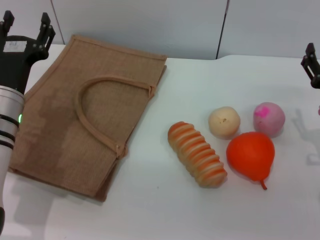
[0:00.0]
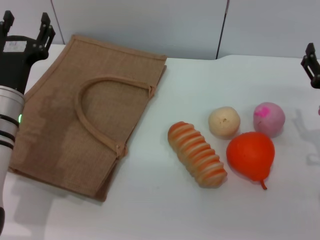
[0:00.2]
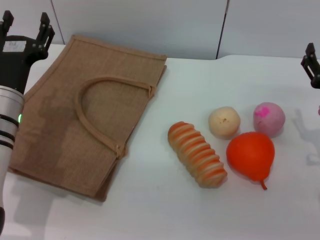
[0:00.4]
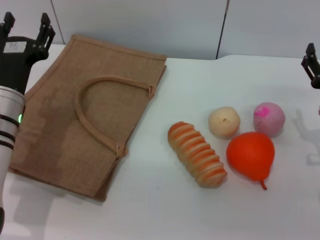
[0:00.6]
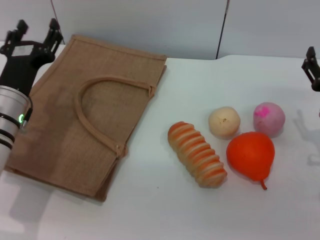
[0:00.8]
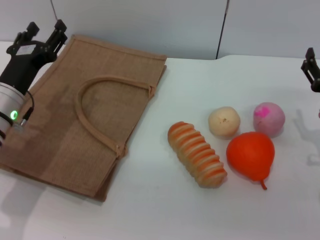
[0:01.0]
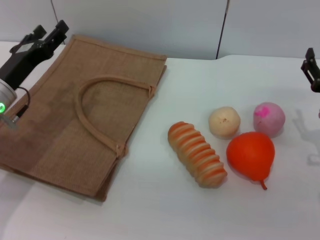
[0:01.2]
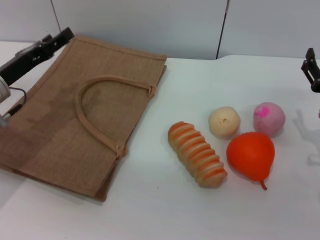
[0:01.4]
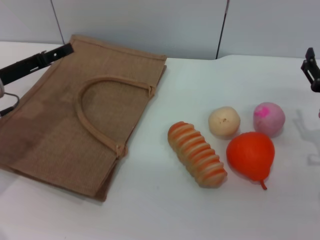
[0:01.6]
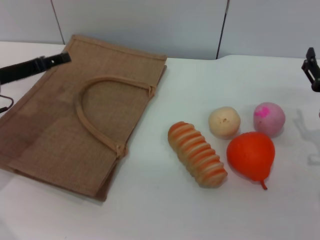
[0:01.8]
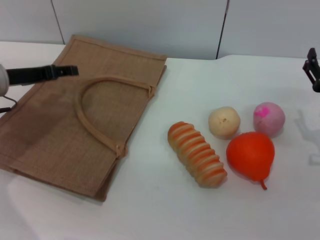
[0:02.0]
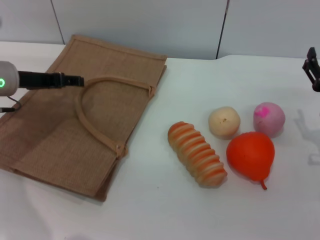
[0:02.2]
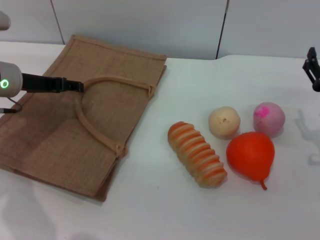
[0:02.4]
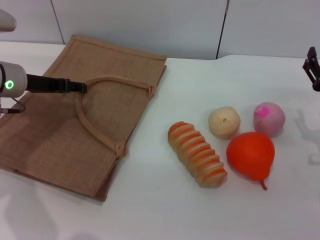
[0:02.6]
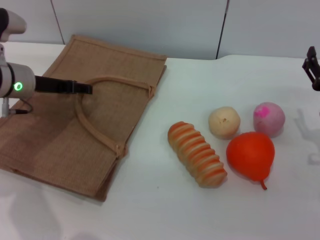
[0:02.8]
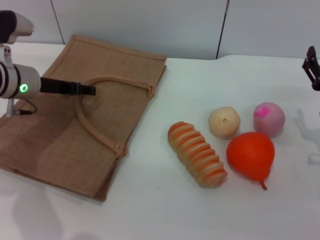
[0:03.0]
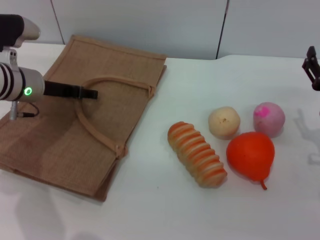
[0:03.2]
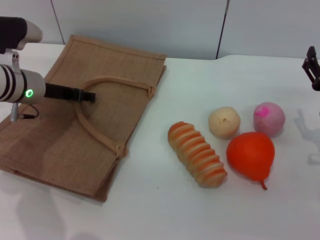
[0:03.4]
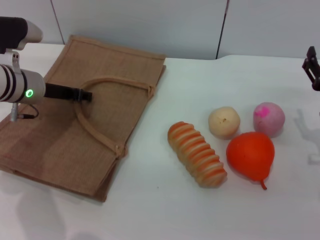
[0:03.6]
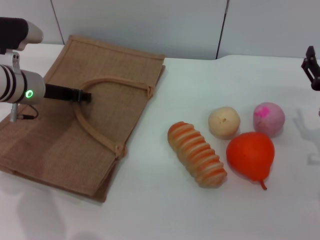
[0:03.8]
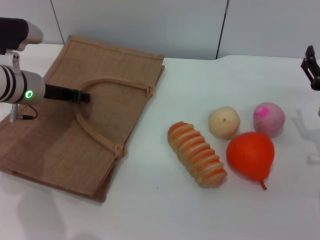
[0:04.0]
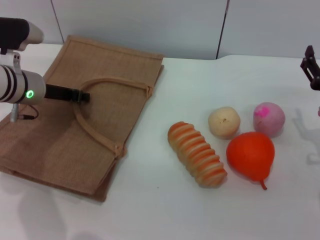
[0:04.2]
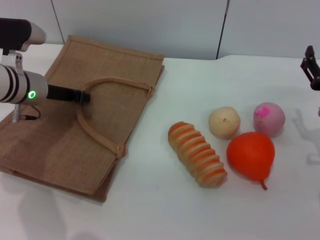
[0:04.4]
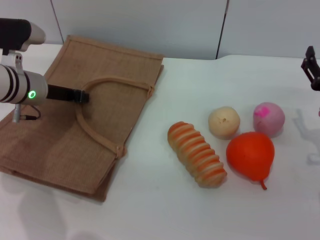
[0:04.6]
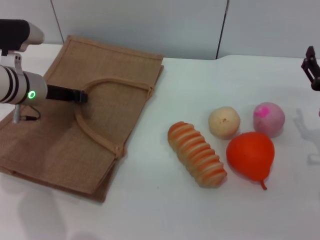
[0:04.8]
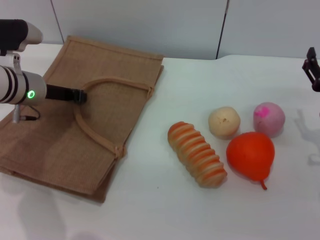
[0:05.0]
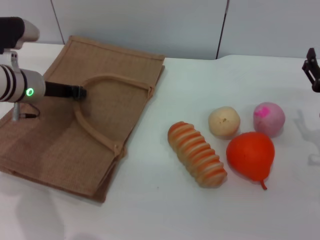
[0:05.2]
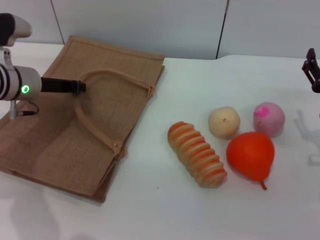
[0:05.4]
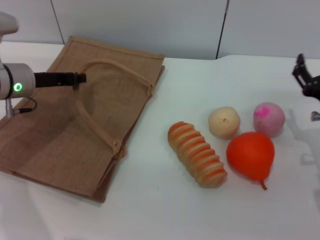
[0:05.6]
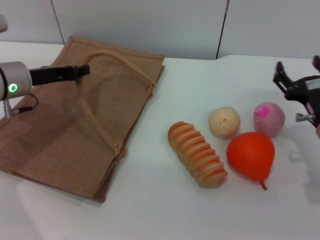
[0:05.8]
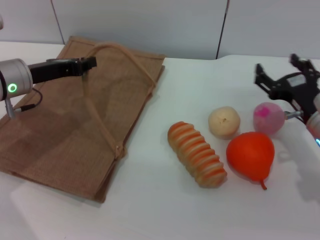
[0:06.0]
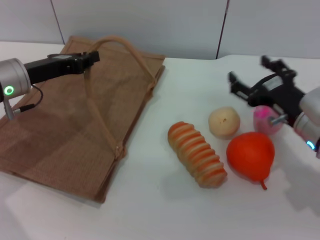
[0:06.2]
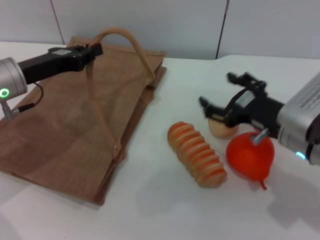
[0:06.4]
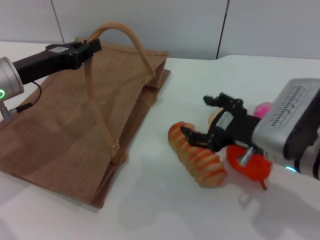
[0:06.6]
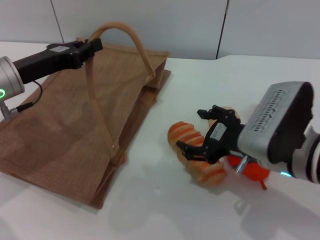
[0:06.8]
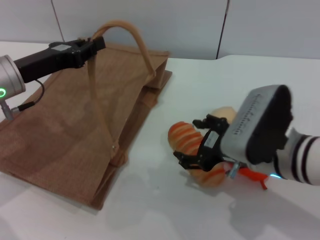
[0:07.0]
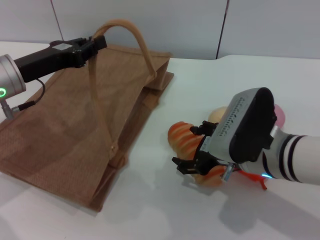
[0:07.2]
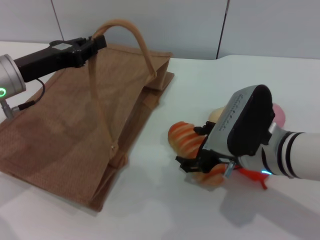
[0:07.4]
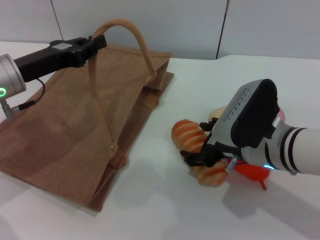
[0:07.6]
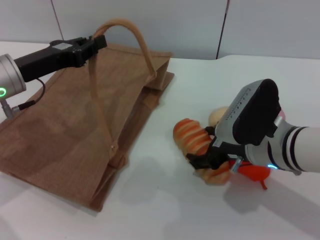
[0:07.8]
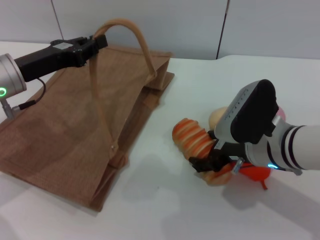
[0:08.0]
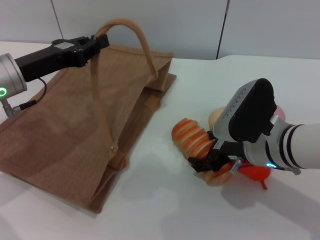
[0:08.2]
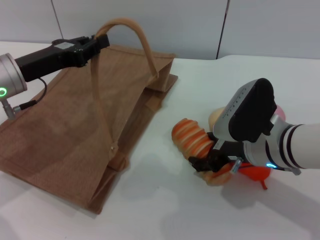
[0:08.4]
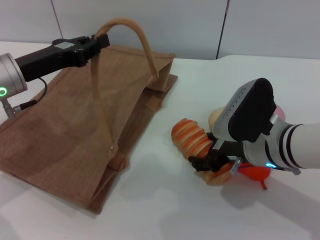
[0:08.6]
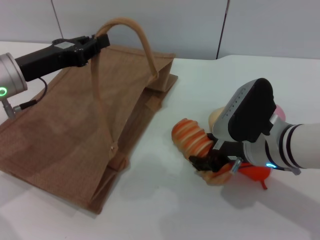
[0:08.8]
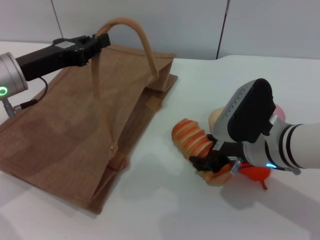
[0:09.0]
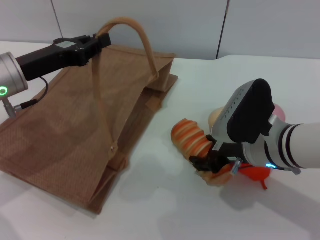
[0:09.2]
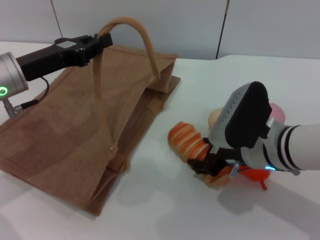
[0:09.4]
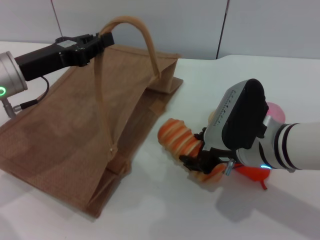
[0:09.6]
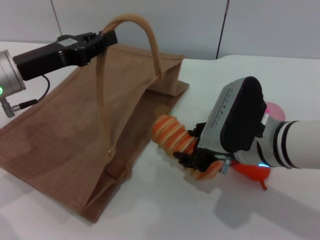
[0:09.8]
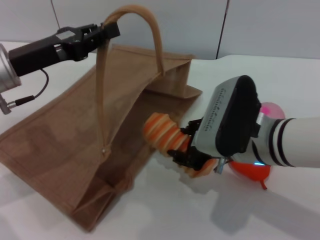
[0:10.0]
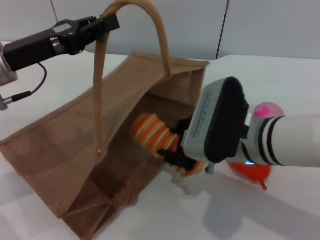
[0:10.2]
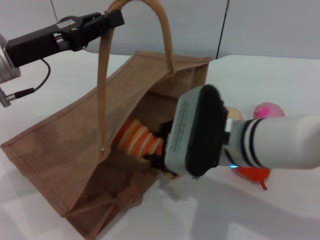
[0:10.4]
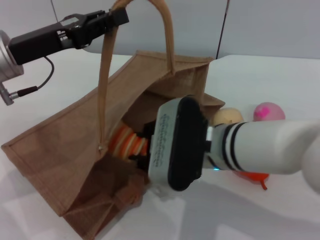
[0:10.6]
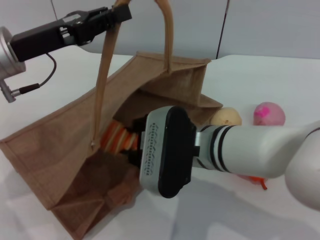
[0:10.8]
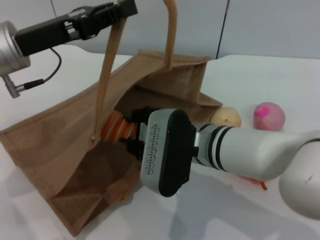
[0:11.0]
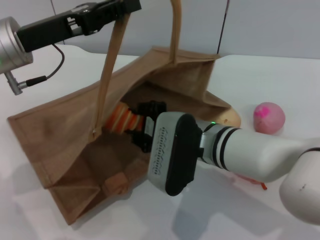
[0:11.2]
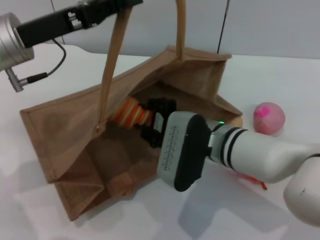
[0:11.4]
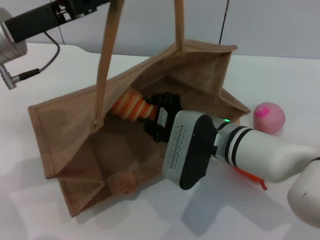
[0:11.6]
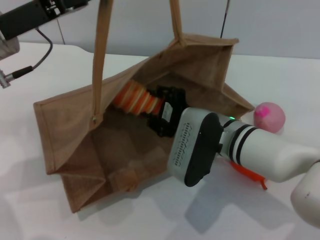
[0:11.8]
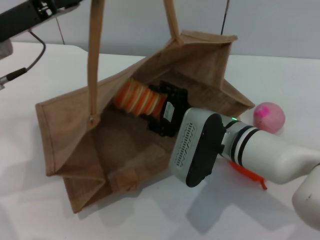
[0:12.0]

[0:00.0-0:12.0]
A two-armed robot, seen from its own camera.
Task of the whole recording: pick up the bread from the table and place it in the brown handbag.
Step, 0:00.0 to 0:05.6: Lift the woven bag with the left gripper to open it.
Step, 0:05.8 to 0:09.6: Pick up the bread with the right gripper.
0:00.0 to 0:01.6: The left gripper heads to the left, covering some 5 cm.
0:01.6 to 0:03.0: The left gripper ends up some 5 cm from where it was.
0:03.0 to 0:04.4: The left gripper closes up.
0:06.0 to 0:07.6: The right gripper shifts about 10 cm to the left.
0:07.6 to 0:09.0: The grippers stay close to where they were, moving slightly.
0:09.0 to 0:10.4: The right gripper goes approximately 5 cm to the left, and closes.
0:10.4 to 0:12.0: The right gripper goes about 5 cm downward, and opens up.

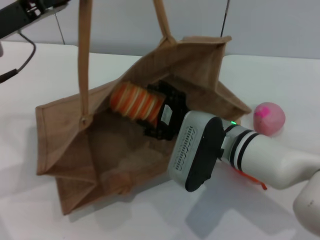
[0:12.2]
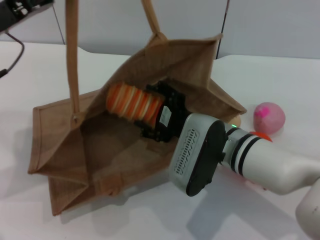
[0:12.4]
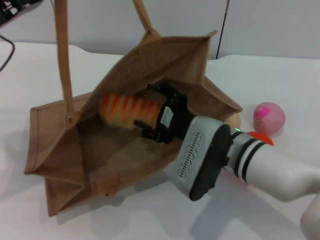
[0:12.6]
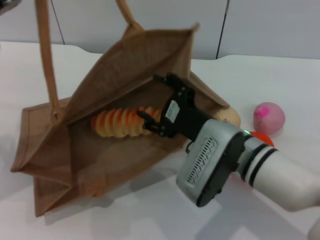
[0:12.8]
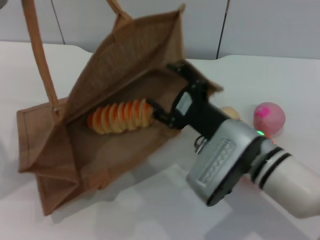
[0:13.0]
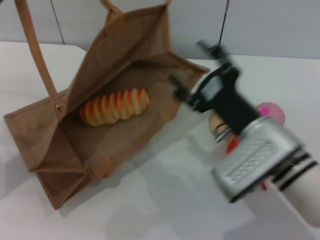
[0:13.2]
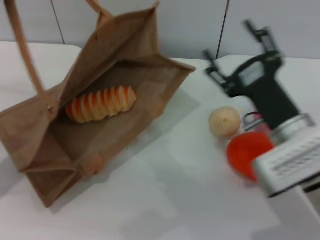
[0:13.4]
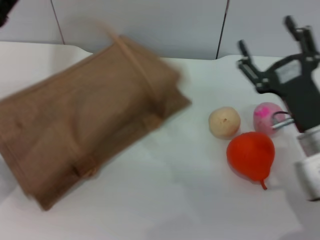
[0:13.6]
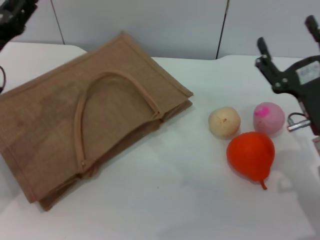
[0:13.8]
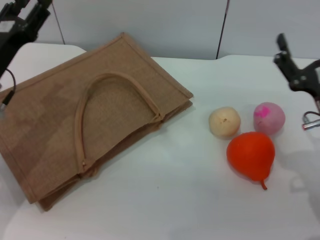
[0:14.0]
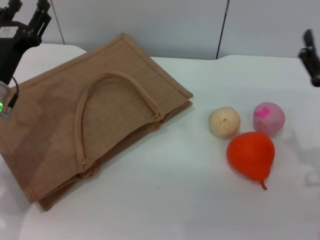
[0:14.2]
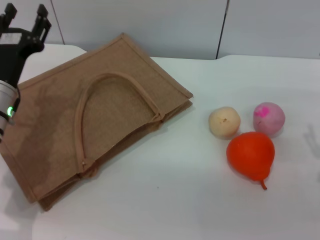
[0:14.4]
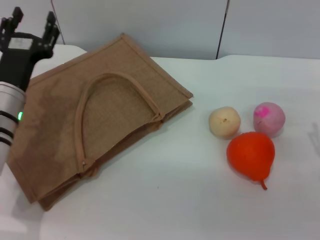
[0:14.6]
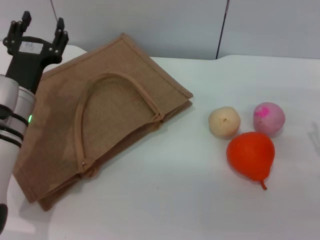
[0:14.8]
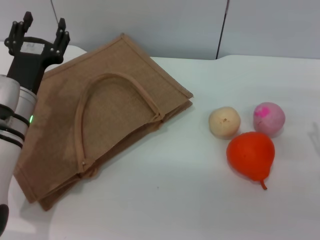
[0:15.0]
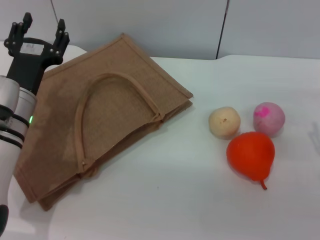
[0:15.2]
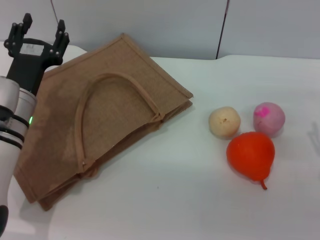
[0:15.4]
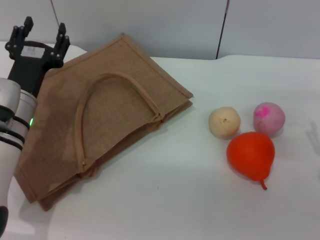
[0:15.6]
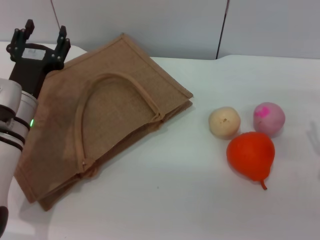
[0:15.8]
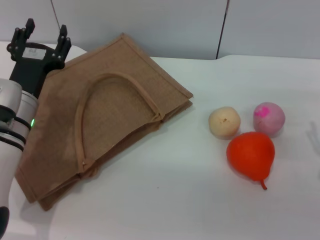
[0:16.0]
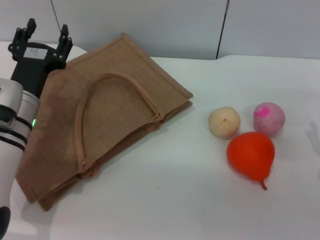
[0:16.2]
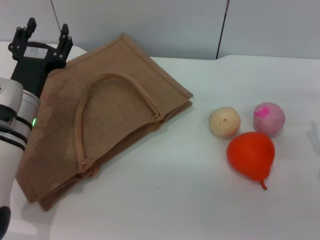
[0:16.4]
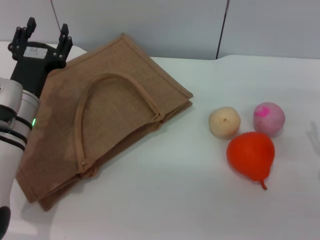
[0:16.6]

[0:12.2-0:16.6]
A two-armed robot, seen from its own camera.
Task of the whole recording: pick up the bread from the table and place it in the brown handbag.
Step, 0:13.2 to 0:13.8: Lower the woven bag with the left gripper to close it.
0:12.2 to 0:13.6: The left gripper heads downward, covering approximately 5 cm; the right gripper heads to the right, covering some 10 cm.
0:13.6 to 0:15.2: The left gripper is displaced to the right and downward by approximately 10 cm, and opens. The right gripper goes some 5 cm to the right.
0:15.2 to 0:16.6: Both grippers stay about where they are.
